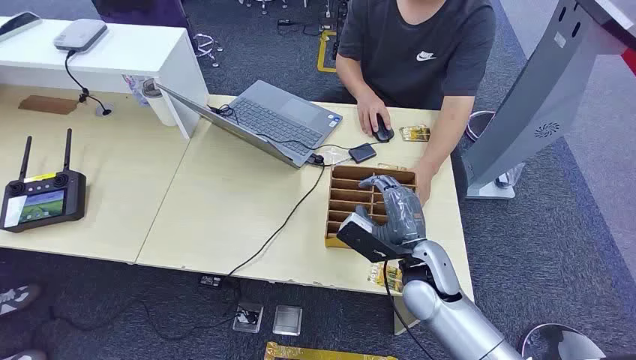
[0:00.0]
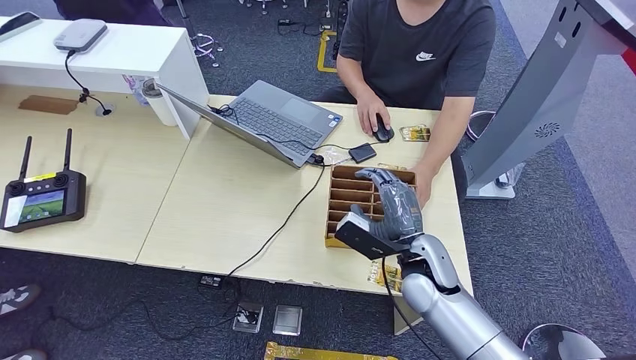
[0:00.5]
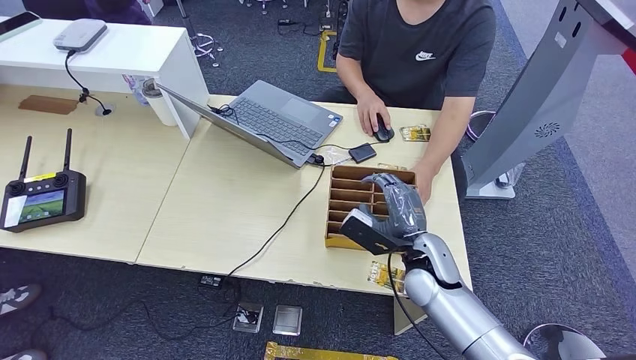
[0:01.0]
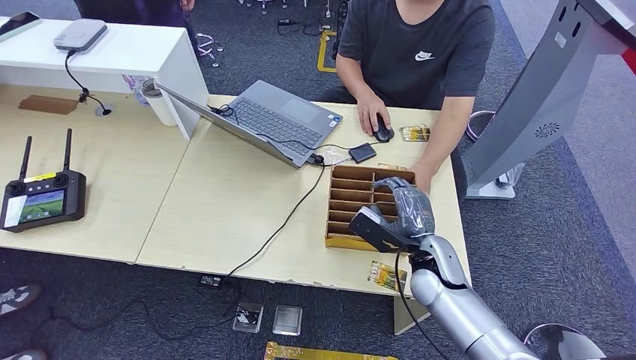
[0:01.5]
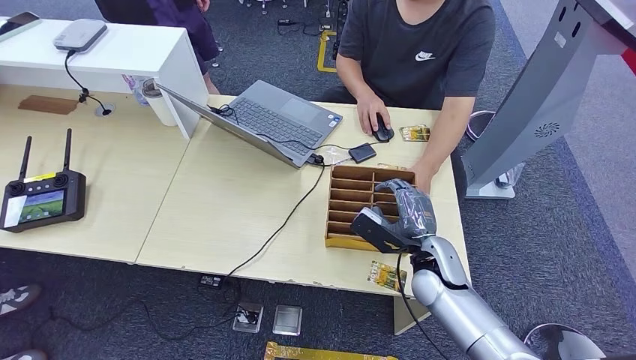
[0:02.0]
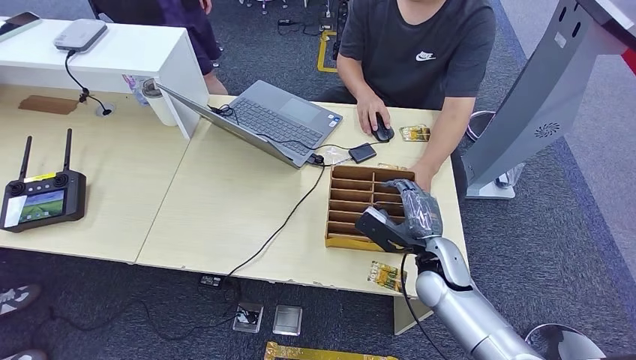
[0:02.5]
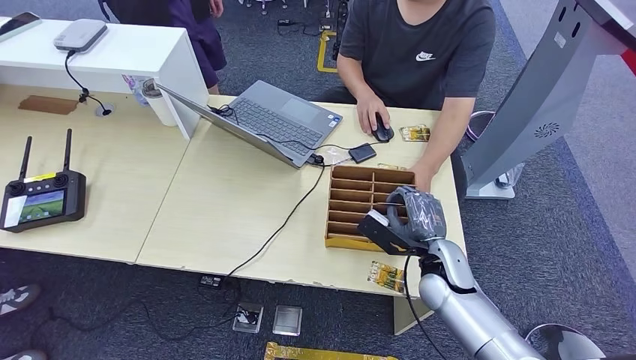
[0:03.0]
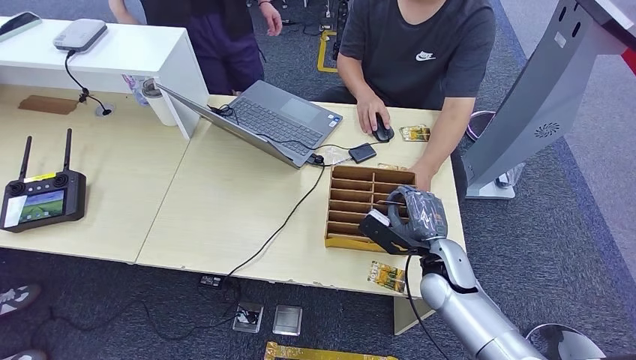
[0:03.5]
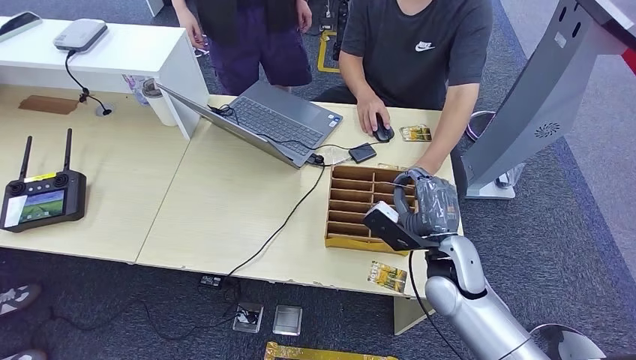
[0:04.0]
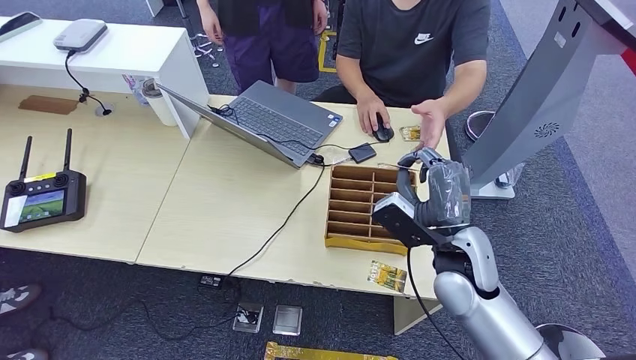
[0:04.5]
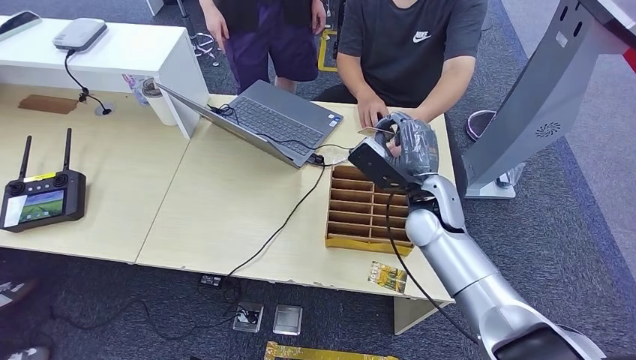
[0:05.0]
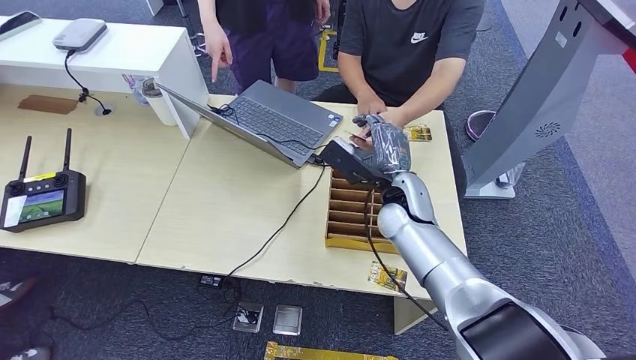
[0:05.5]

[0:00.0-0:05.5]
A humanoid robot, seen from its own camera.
Step, 0:00.0 to 0:03.5: Pick up the key card from the card box.
Step, 0:04.0 to 0:05.5: Hand the key card to the target.
0:02.0 to 0:03.5: The hands make only small movements.
0:03.5 to 0:05.5: The right hand is displaced upward, forward and to the left by approximately 15 cm.
